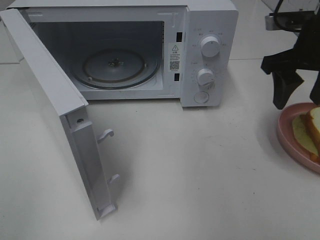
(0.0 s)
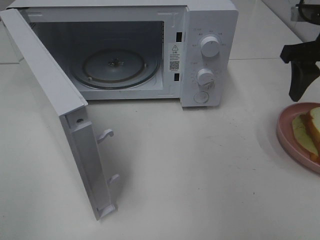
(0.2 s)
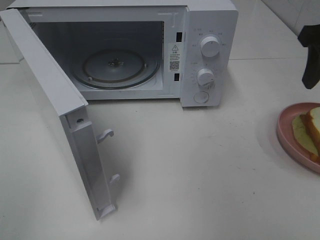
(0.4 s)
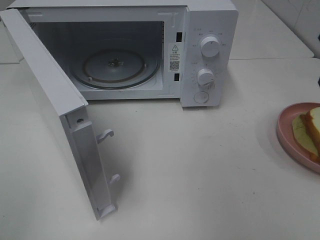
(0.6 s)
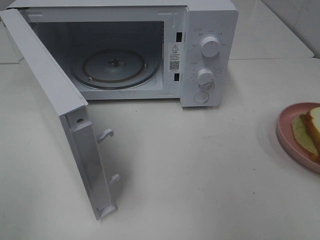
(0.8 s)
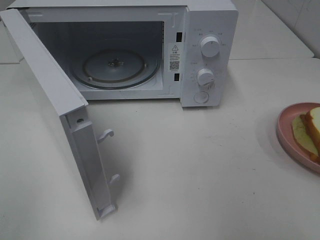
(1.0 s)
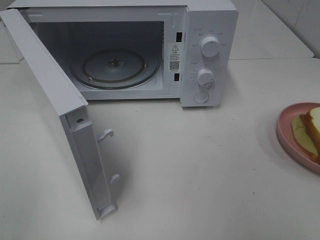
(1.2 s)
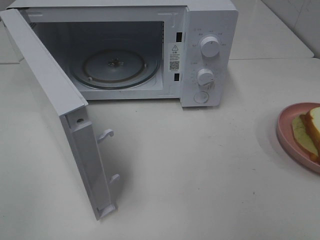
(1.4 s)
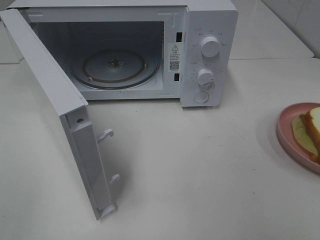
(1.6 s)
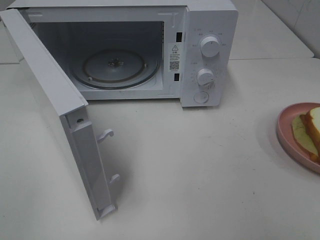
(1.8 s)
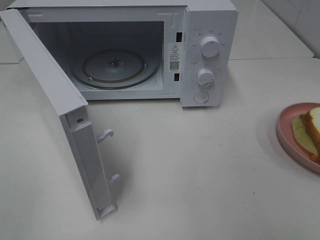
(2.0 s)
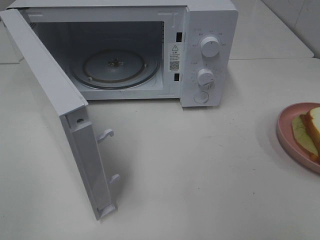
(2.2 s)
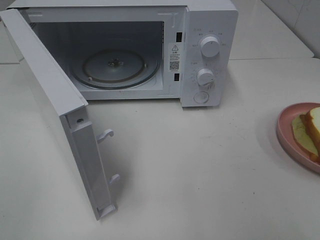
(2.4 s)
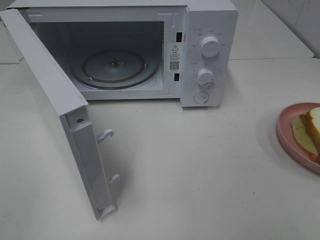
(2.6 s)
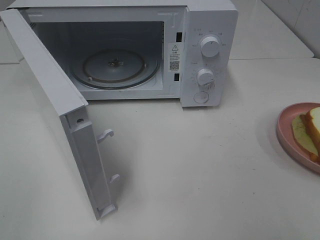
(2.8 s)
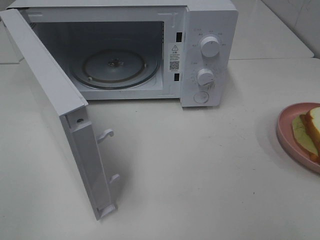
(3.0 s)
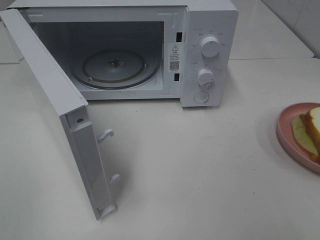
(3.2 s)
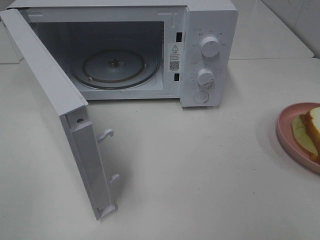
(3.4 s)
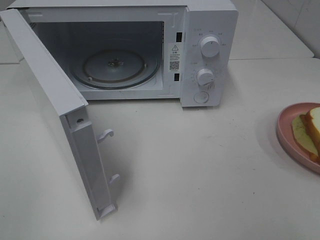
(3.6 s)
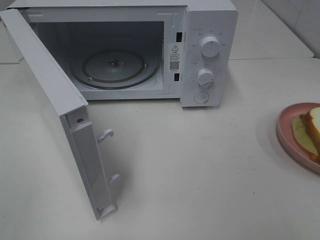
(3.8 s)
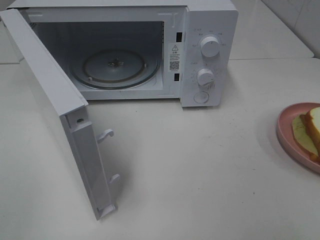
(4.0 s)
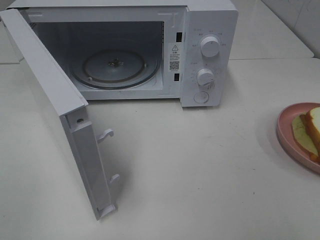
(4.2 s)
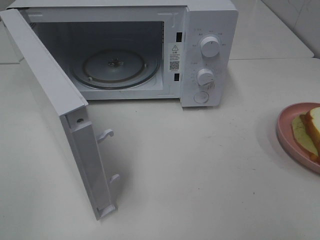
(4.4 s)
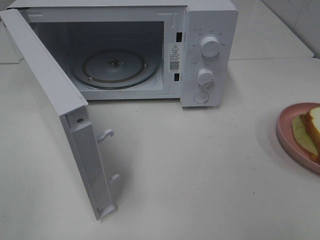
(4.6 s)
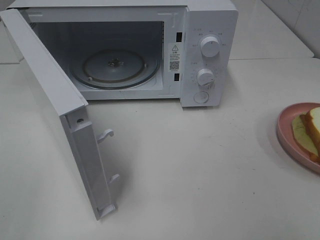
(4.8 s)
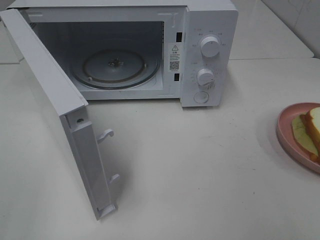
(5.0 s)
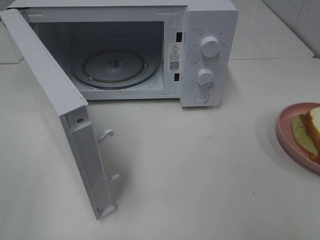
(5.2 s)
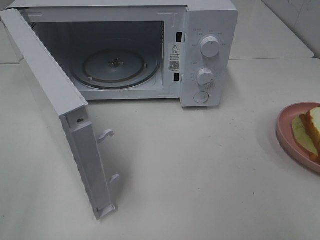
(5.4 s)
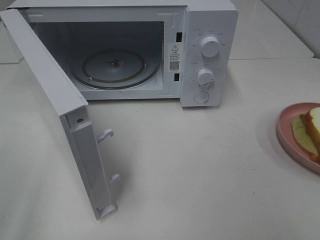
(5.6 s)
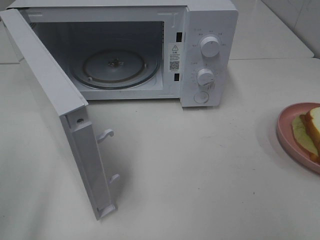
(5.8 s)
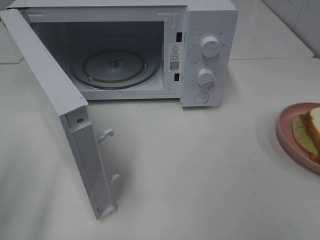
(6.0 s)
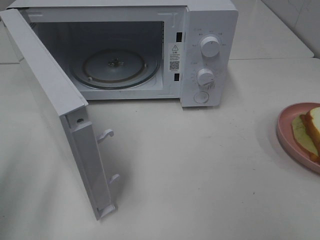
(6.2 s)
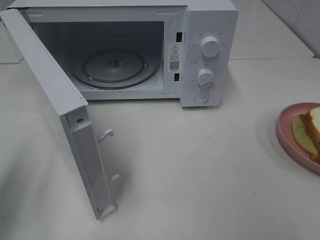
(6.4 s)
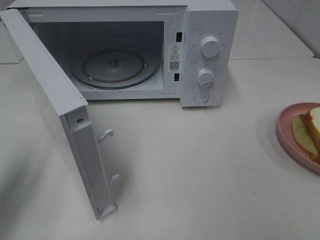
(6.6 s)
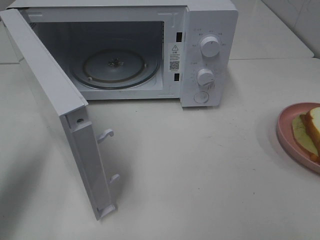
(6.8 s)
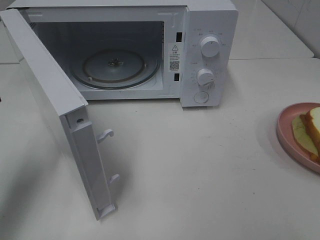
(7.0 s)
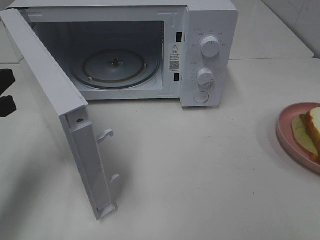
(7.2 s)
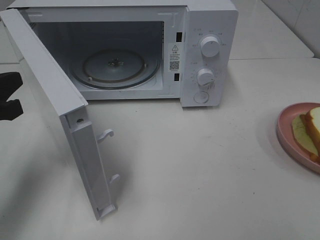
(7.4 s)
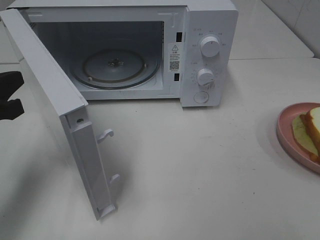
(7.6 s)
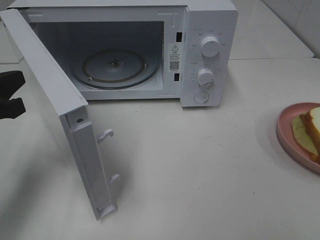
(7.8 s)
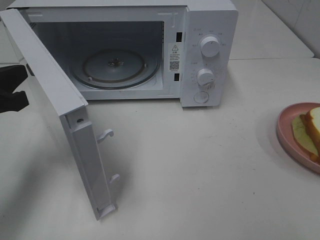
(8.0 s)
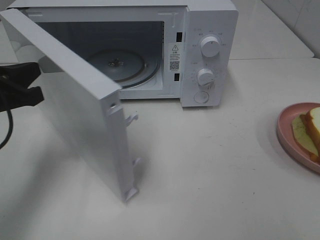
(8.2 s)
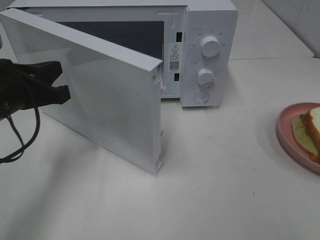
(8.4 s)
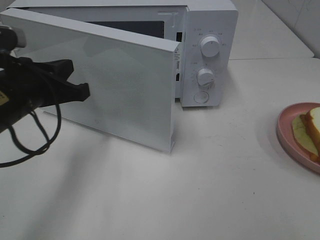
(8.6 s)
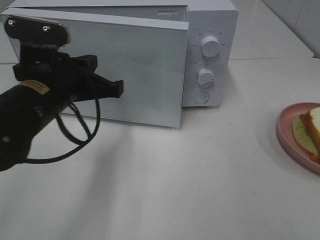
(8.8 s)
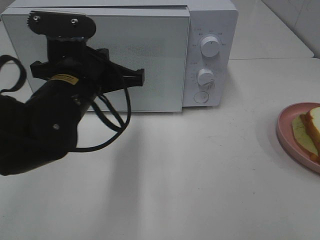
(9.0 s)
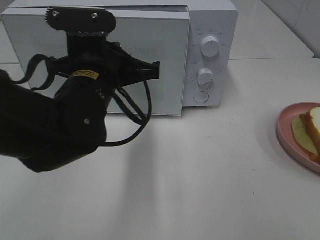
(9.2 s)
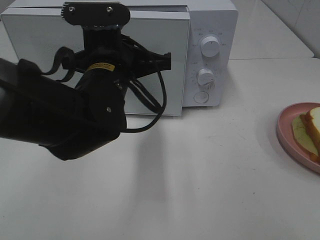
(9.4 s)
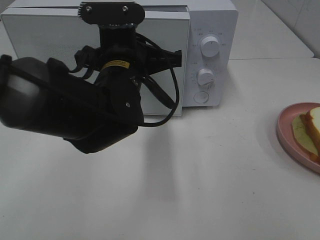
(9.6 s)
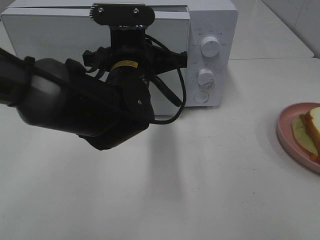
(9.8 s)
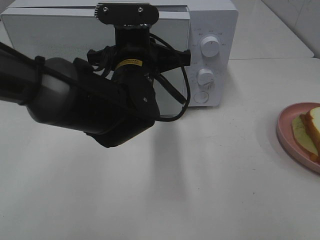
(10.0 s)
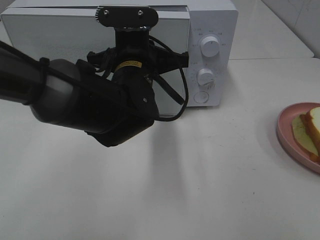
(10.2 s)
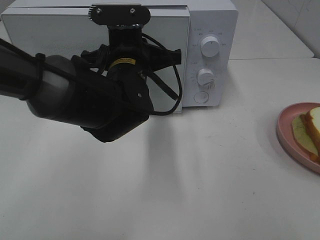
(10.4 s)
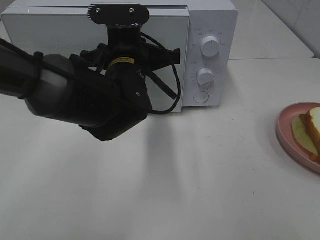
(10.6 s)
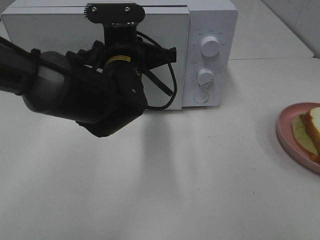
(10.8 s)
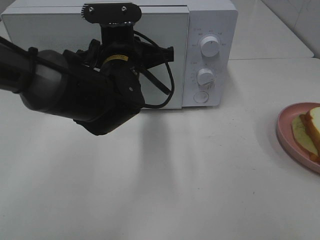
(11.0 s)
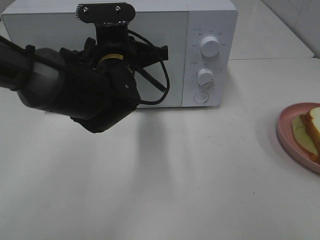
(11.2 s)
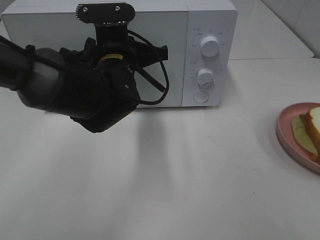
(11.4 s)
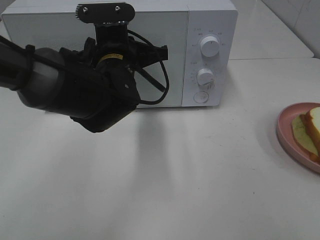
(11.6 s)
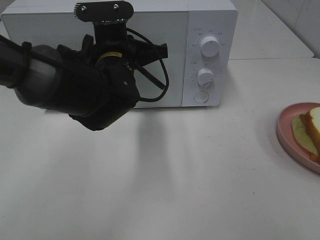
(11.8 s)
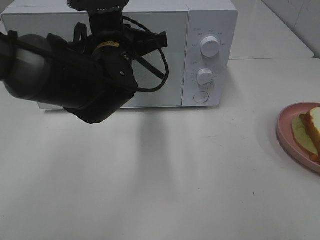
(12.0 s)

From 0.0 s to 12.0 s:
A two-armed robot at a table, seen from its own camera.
Task of the whole recording: Heat Sandwich.
From 0.0 s to 1.6 s: The right gripper goes roughly 25 cm backward.
From 3.0 s to 4.4 s: Neither gripper changes place.
From 6.0 s to 7.6 s: The left gripper heads forward and downward, covering some 15 cm, and closes up.
From 7.6 s to 9.0 s: The left gripper goes roughly 15 cm to the right.
From 9.0 s to 10.4 s: The left gripper is displaced to the right and forward by about 10 cm.
From 10.4 s to 12.0 s: The grippers move only a little.

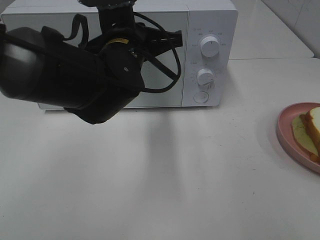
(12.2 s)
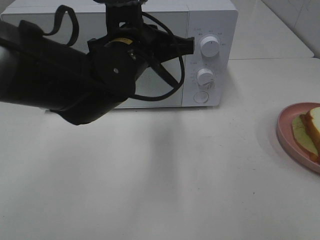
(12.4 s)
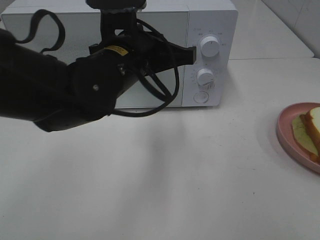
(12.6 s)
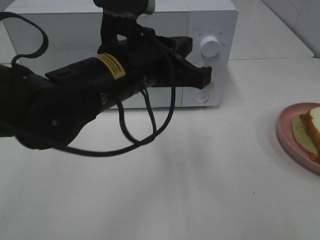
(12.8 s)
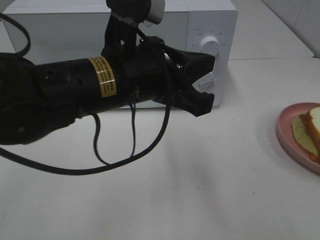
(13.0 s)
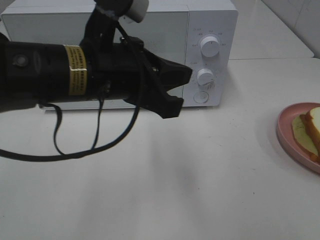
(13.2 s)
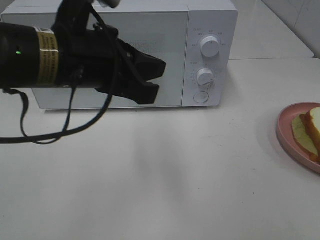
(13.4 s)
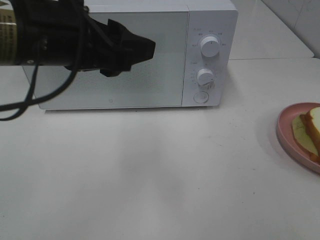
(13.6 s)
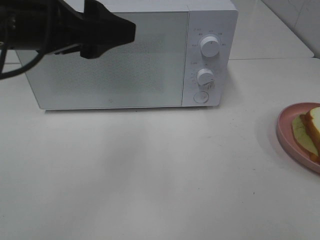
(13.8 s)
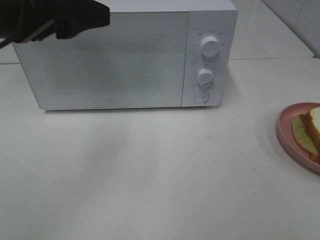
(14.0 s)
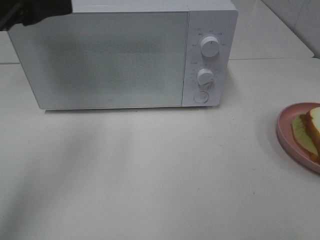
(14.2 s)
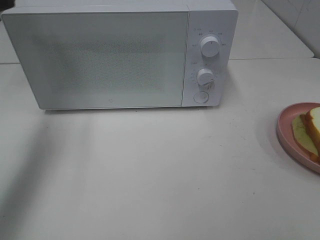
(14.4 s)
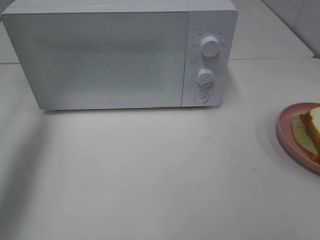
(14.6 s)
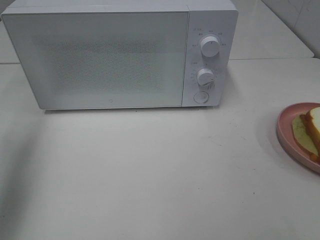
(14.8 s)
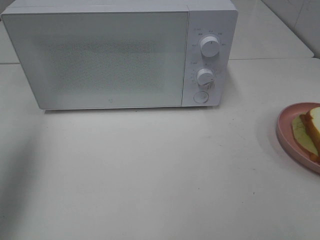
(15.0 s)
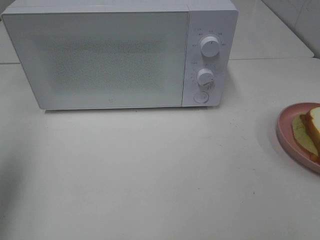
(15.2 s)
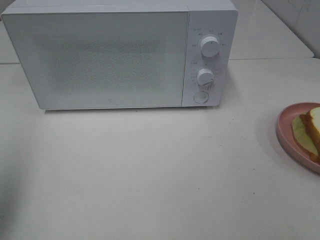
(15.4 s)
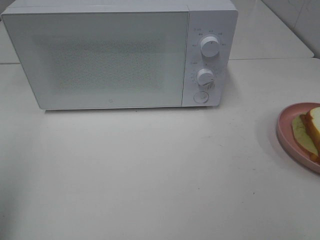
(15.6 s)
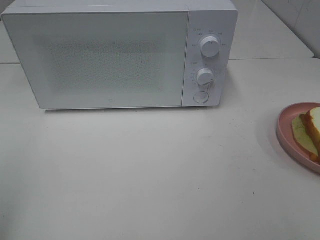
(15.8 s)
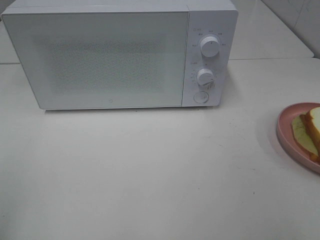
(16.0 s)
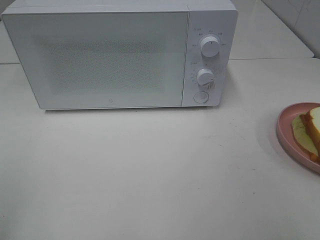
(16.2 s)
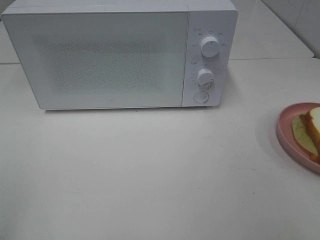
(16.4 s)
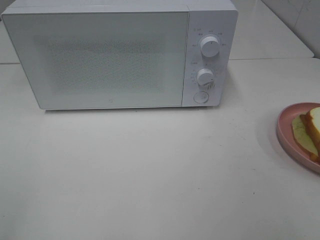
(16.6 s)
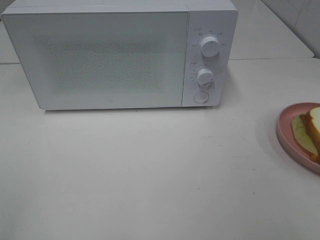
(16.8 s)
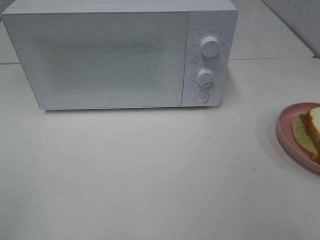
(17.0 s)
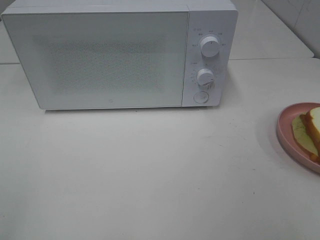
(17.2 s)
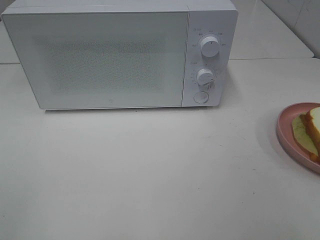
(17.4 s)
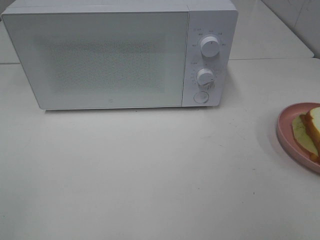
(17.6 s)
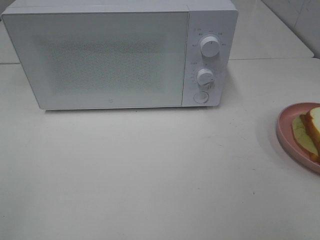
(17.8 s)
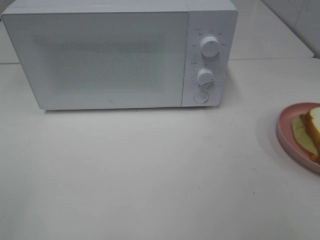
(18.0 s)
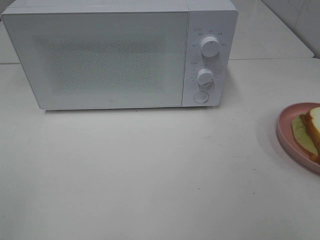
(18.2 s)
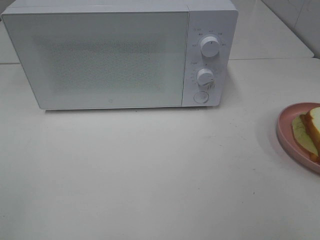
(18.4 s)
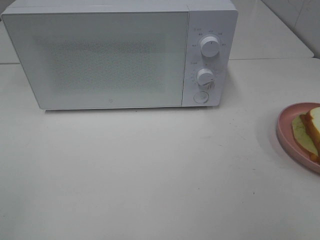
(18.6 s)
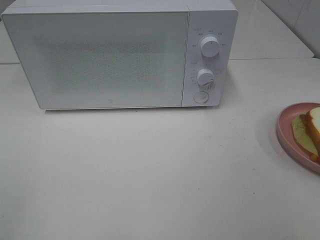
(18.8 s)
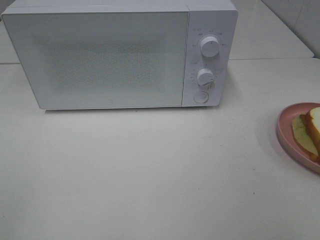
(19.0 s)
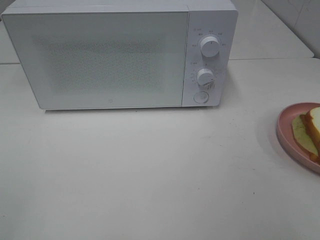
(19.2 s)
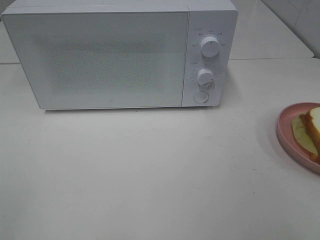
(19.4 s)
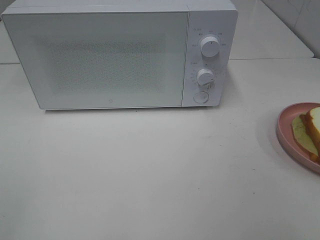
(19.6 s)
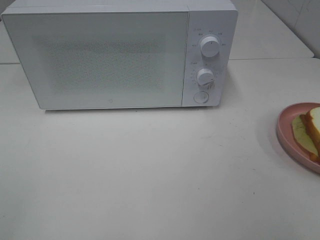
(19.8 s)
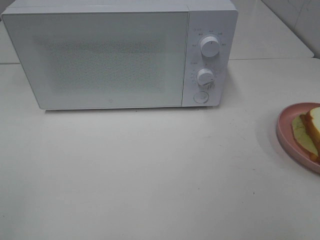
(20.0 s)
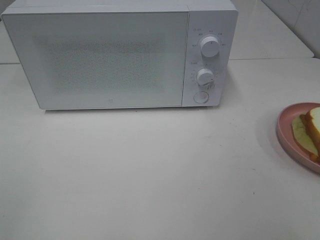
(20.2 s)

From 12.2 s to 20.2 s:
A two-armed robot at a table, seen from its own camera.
Task of the whole recording: Heat Sandwich.
From 12.2 s to 13.8 s: The left gripper shifts about 15 cm to the left, upward and backward, and opens.
From 13.8 s to 15.4 s: The left gripper heads to the left and backward, covering roughly 20 cm.
From 15.4 s to 17.0 s: The left gripper heads backward, covering about 15 cm.
From 17.0 s to 20.2 s: Neither gripper changes place.

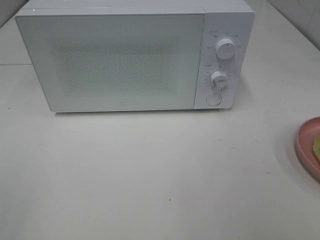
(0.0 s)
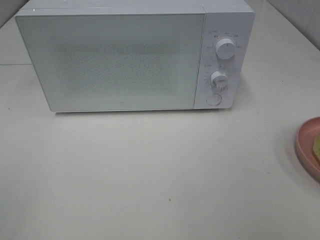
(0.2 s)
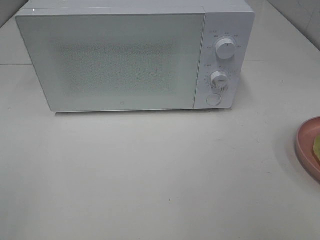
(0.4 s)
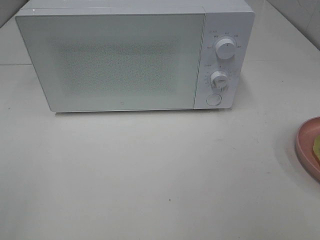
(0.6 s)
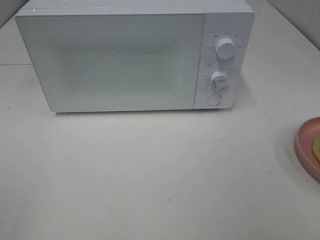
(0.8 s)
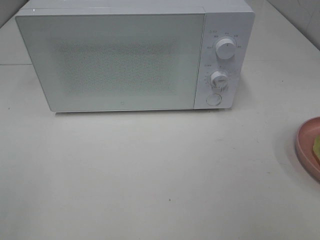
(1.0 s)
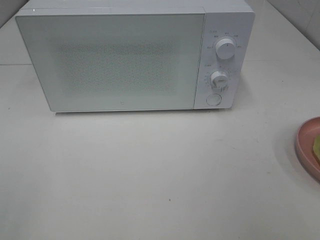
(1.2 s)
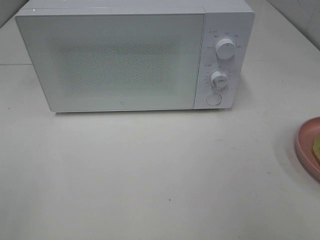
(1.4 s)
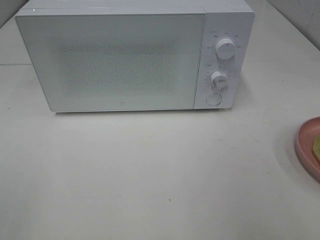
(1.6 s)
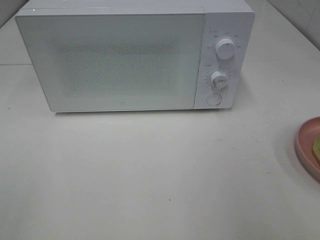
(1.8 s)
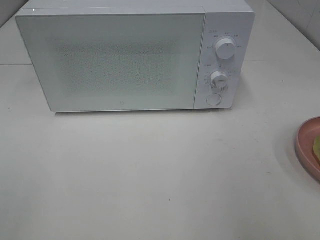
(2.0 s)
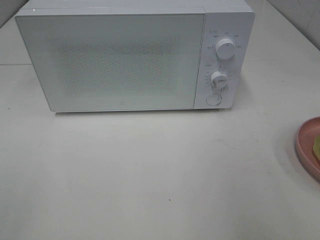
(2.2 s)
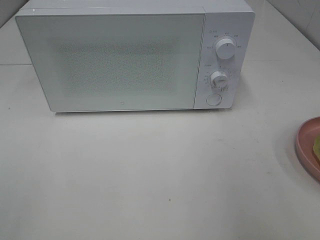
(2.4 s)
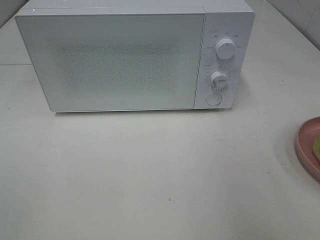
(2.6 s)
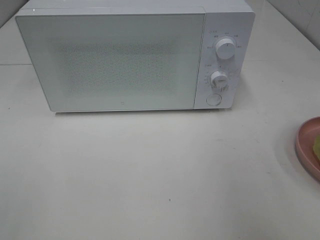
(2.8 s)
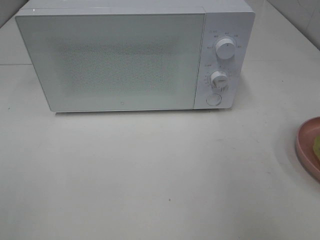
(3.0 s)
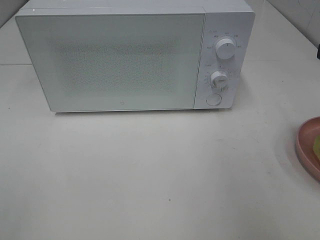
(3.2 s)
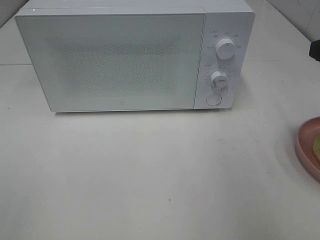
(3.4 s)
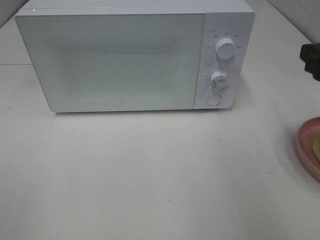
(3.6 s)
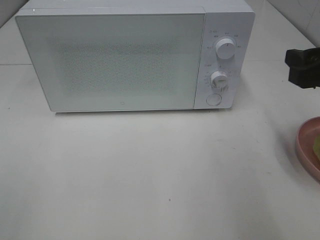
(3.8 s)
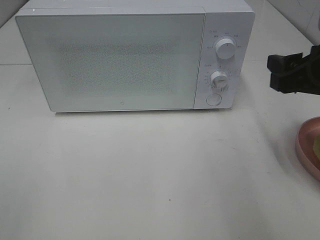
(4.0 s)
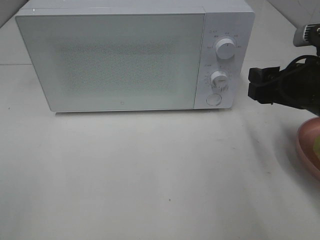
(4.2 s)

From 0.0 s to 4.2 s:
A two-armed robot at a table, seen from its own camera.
Task of the whole recording: Heat Sandwich.
From 2.8 s to 4.2 s: The right gripper heads downward, forward and to the left, covering some 15 cm.
